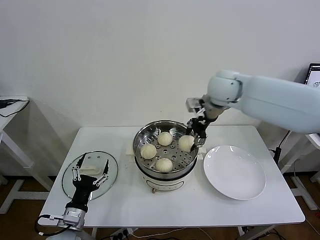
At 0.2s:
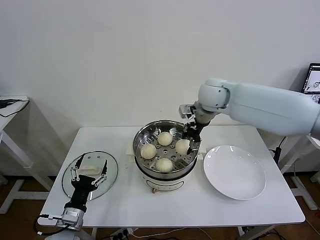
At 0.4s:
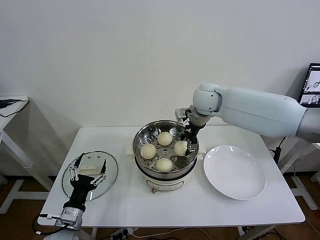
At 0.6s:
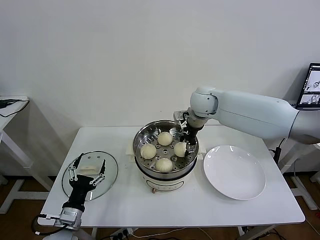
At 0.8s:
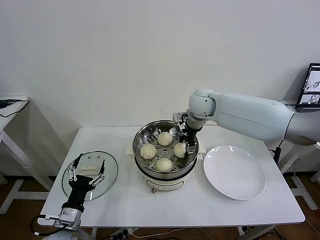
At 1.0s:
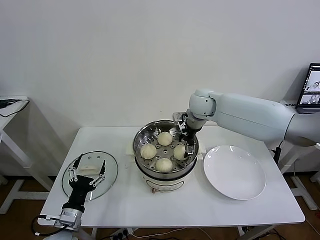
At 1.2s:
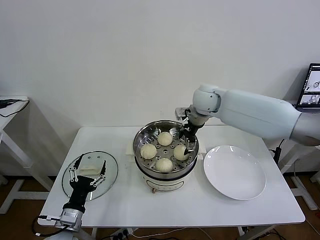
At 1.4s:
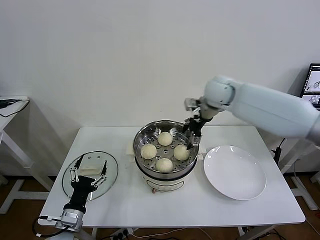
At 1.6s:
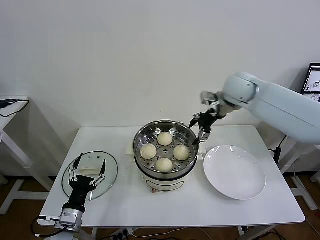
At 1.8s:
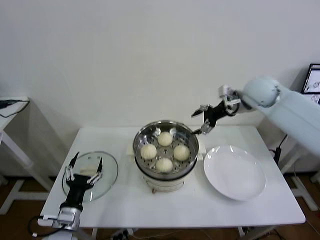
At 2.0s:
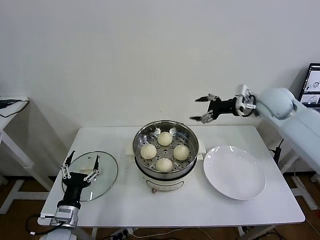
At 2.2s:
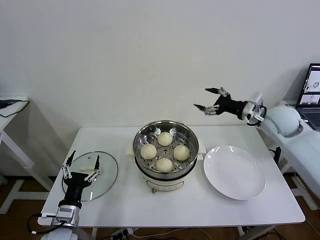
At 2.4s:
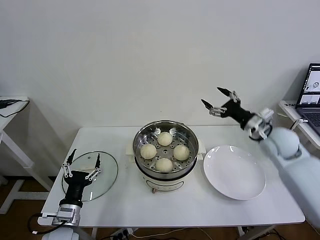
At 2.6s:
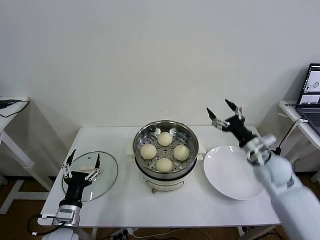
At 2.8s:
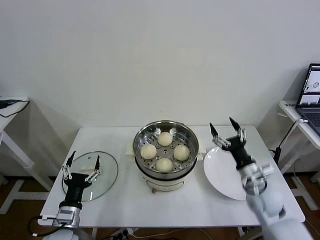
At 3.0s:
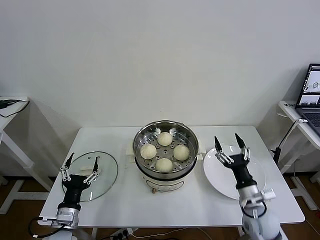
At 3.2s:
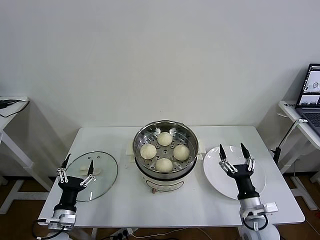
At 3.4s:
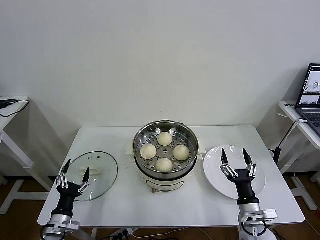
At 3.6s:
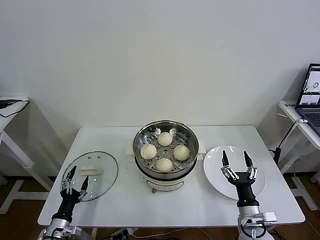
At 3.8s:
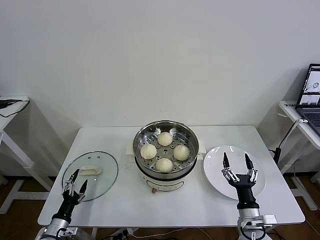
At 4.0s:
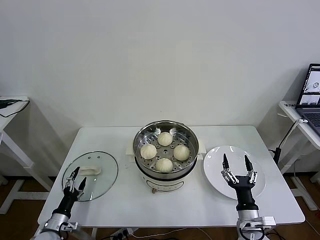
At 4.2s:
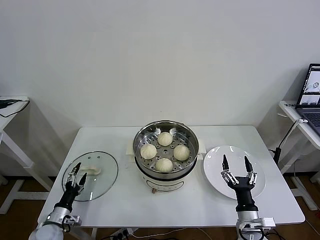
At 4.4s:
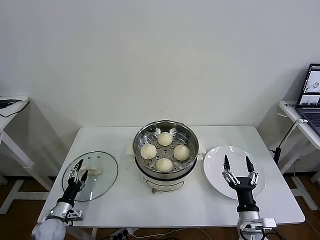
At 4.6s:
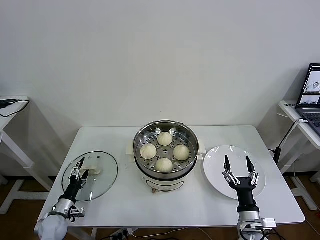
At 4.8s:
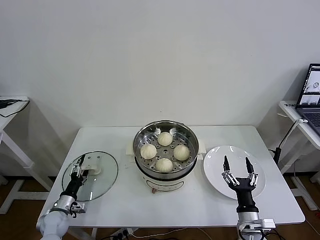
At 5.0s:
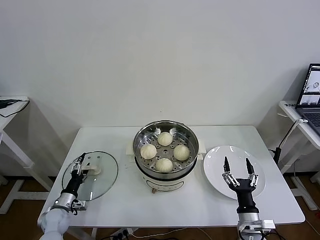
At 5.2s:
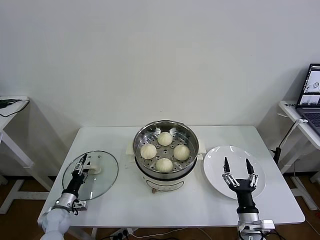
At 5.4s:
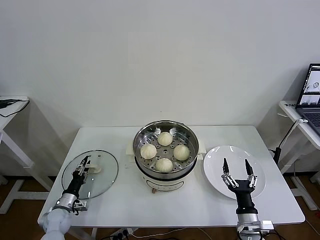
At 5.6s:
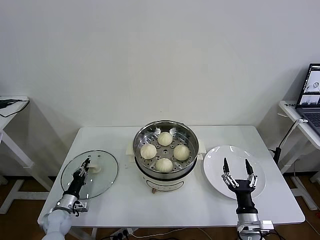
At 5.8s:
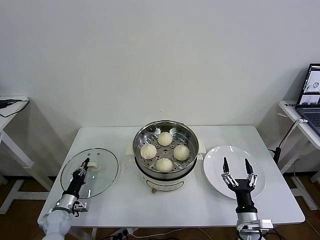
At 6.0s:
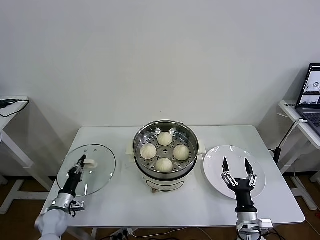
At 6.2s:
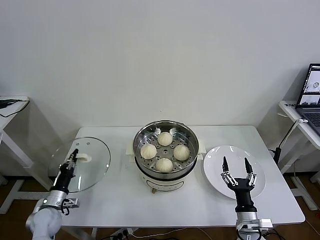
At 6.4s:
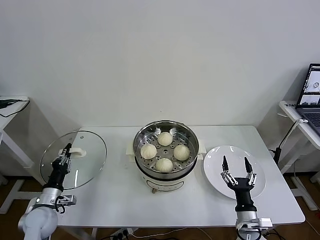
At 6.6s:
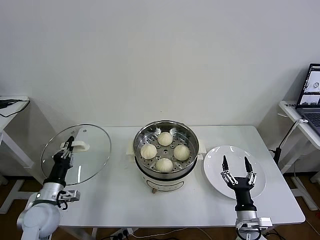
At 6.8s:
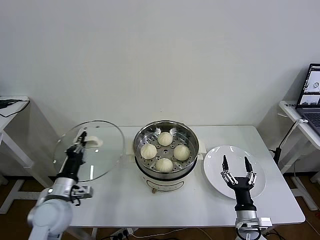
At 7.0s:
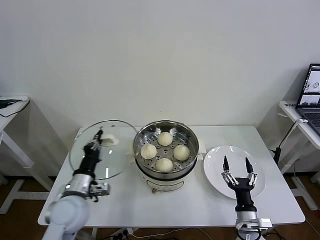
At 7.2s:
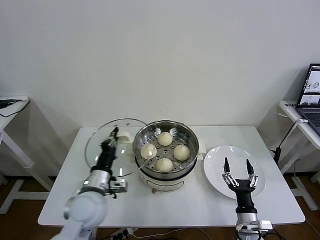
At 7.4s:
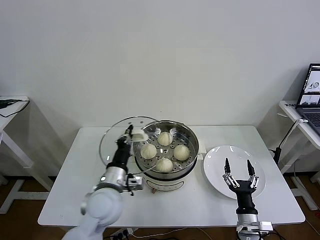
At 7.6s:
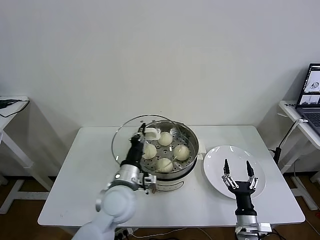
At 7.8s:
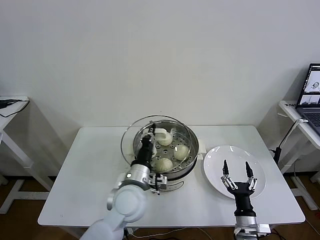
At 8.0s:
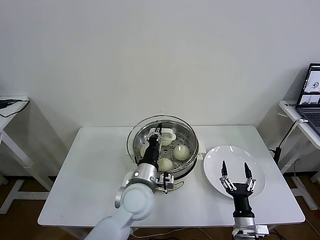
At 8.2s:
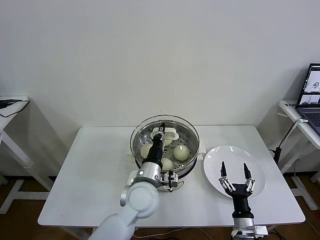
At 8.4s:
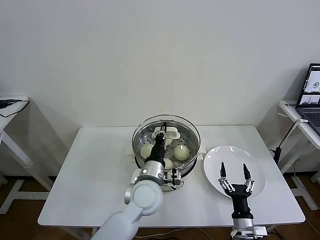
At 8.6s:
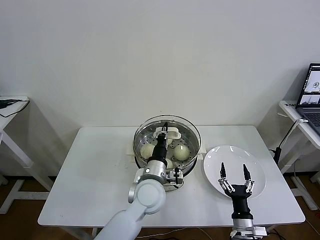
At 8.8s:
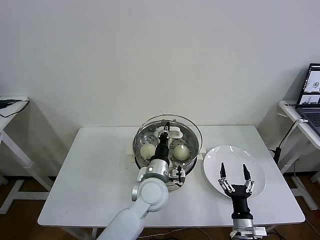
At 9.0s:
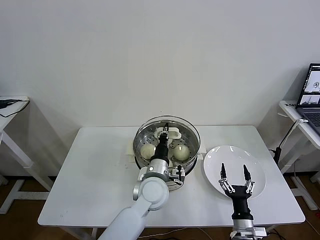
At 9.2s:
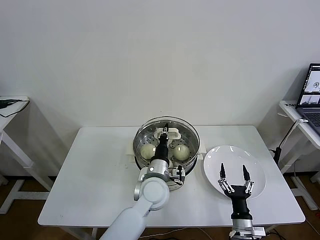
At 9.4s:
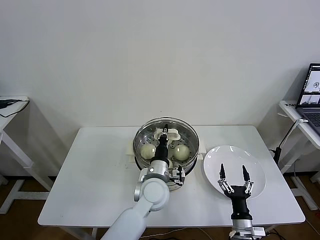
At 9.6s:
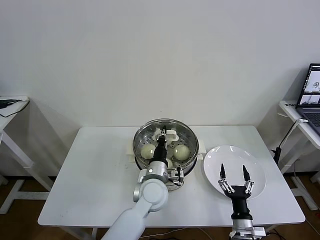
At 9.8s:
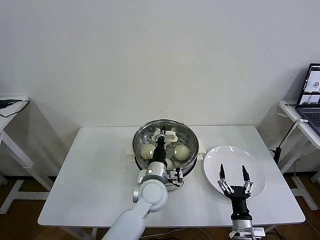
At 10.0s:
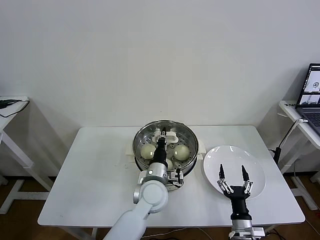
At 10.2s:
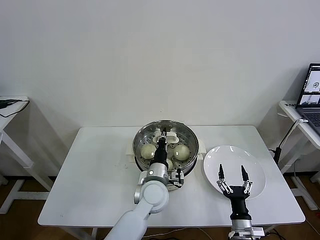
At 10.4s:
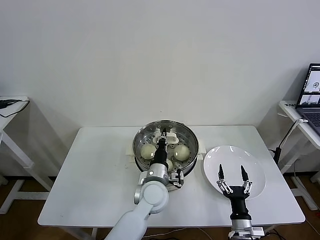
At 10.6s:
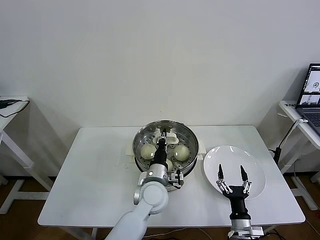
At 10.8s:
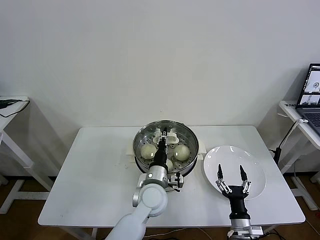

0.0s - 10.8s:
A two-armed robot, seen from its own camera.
Task of the whole recording: take steamed baozi put them in steamer then cover it.
Step, 1.2s - 5.8s: Grasp the pot lid with left gripper.
0.0s - 1.6s: The right gripper travels to the right by some 5 cm, and opens.
1.6s - 3.0s: The right gripper shifts roughly 40 cm downward and backward.
3.0s - 4.6s: The left gripper heads downward, to the left and forward, covering some 20 cm; the right gripper shifts approximately 10 cm backward and downward.
4.6s - 6.2s: The left gripper closes up.
6.2s - 7.8s: The left gripper is displaced to the right and upward by about 35 cm.
7.8s - 9.2s: The left gripper travels to the right by about 5 cm.
9.2s - 10.8s: There are only small adjustments of the grippers.

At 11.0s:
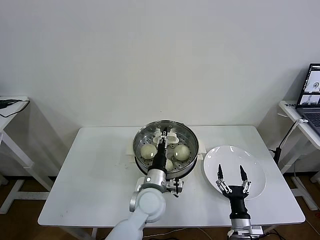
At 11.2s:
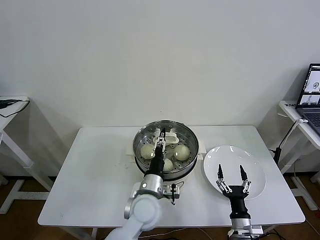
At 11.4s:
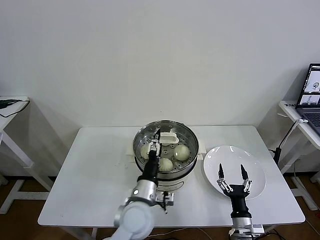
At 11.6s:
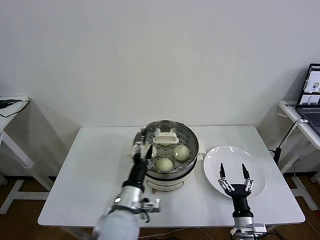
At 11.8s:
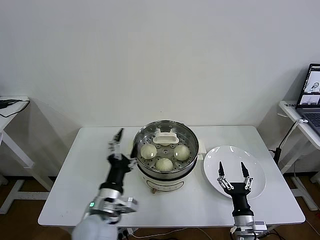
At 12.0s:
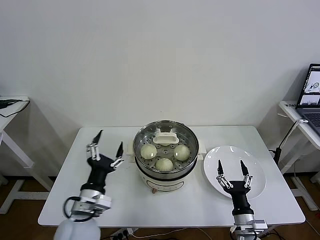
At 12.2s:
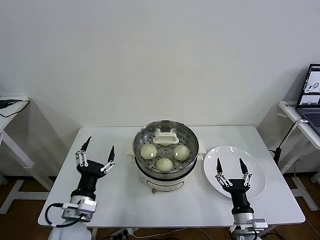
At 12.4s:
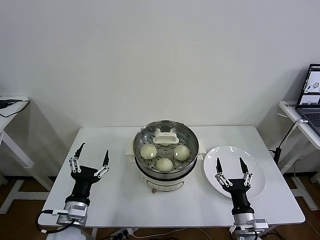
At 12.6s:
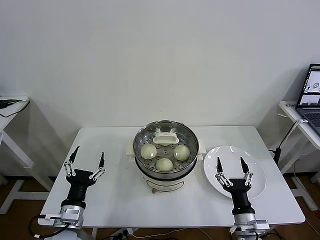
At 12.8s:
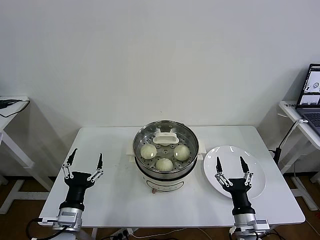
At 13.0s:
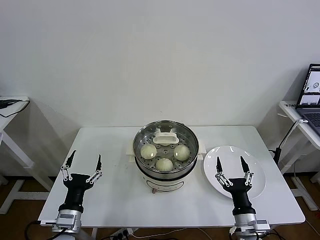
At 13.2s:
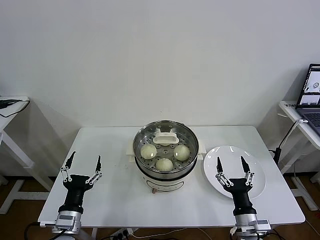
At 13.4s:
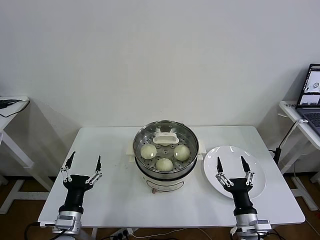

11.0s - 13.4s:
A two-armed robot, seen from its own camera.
Task of the whole recording: take steamed baozi put them in steamer then cover it.
11.0s - 12.2s: The left gripper shifts about 20 cm to the left and backward, and opens up, while the right gripper shifts about 5 cm upward.
12.2s - 13.4s: The left gripper shifts some 5 cm downward.

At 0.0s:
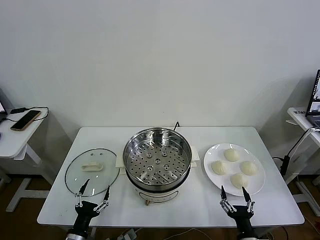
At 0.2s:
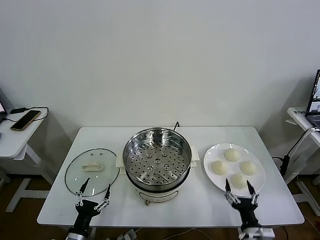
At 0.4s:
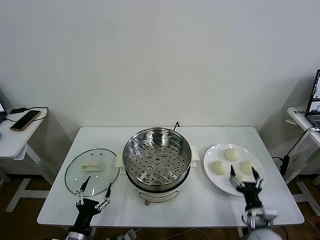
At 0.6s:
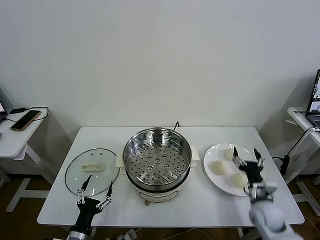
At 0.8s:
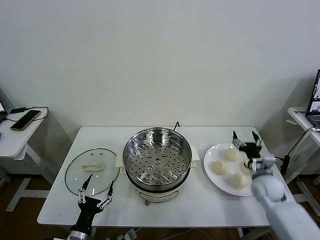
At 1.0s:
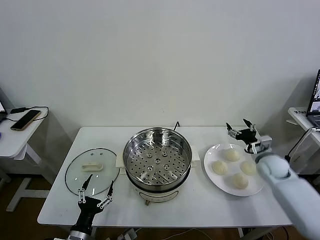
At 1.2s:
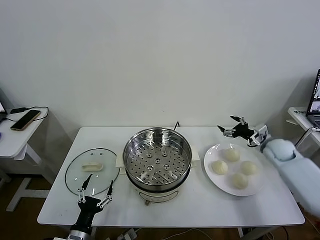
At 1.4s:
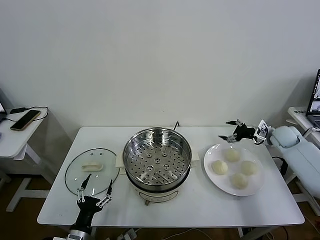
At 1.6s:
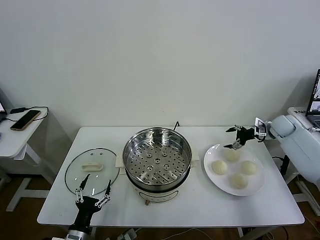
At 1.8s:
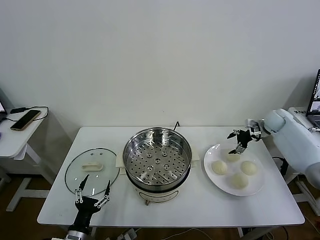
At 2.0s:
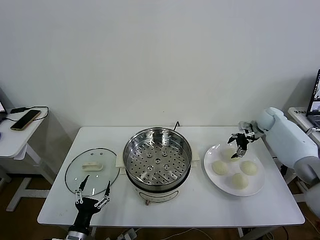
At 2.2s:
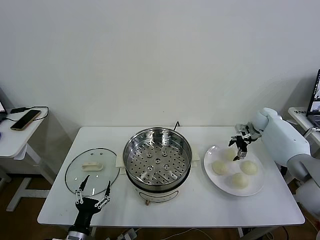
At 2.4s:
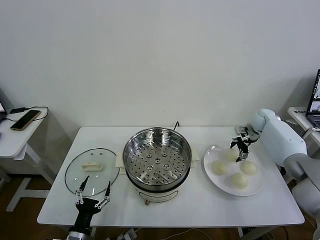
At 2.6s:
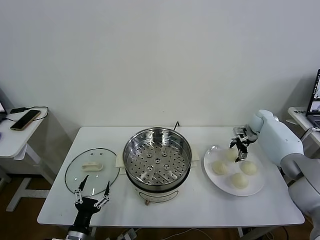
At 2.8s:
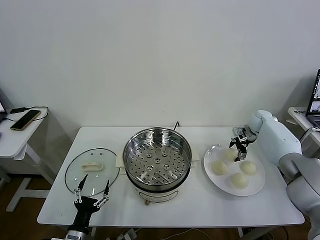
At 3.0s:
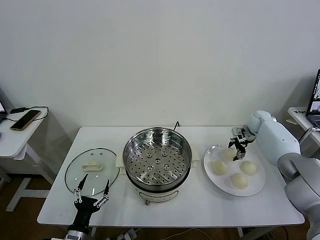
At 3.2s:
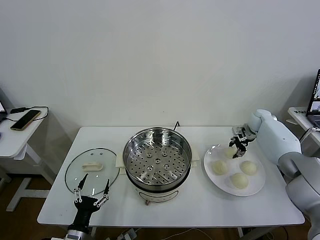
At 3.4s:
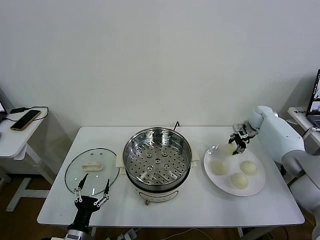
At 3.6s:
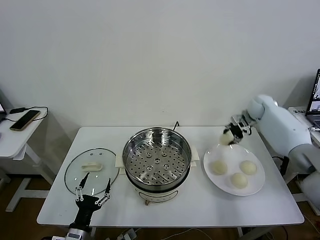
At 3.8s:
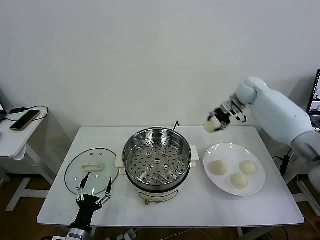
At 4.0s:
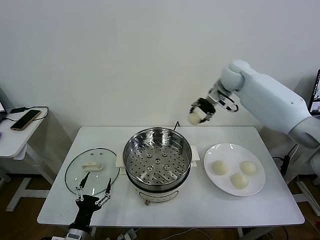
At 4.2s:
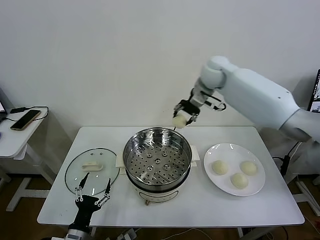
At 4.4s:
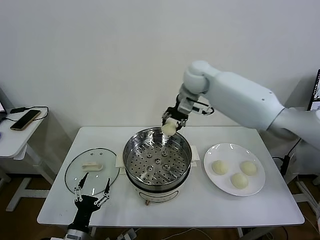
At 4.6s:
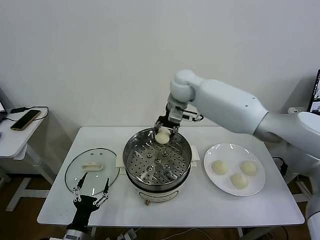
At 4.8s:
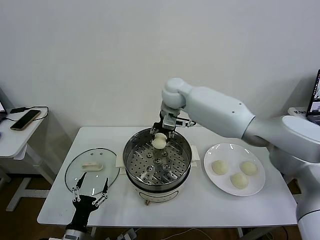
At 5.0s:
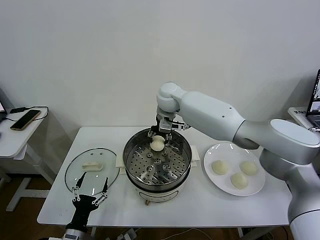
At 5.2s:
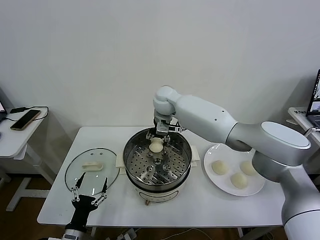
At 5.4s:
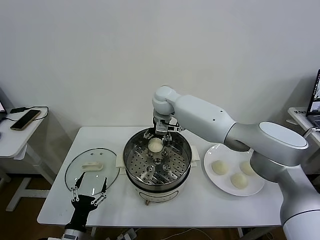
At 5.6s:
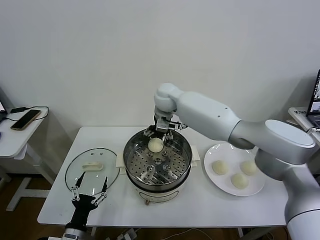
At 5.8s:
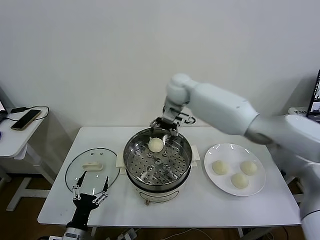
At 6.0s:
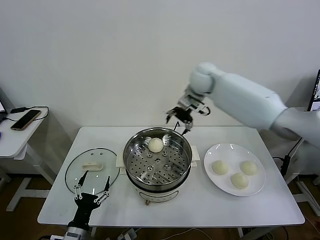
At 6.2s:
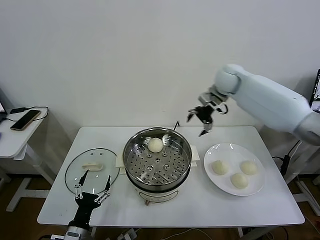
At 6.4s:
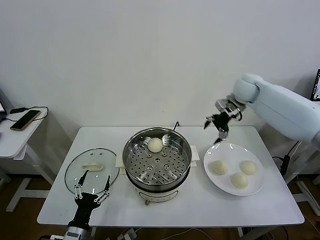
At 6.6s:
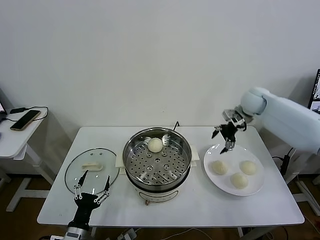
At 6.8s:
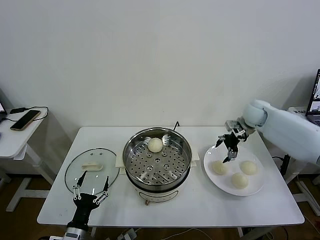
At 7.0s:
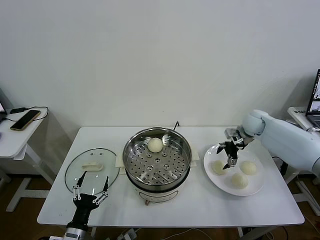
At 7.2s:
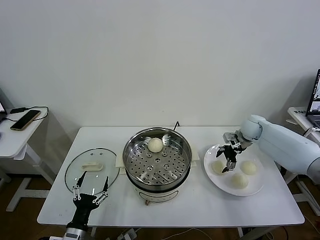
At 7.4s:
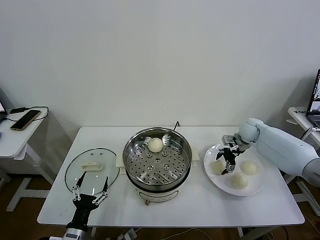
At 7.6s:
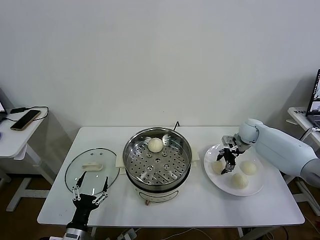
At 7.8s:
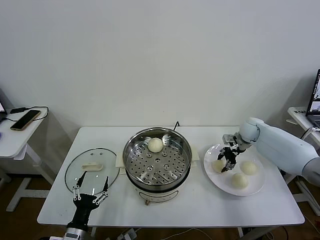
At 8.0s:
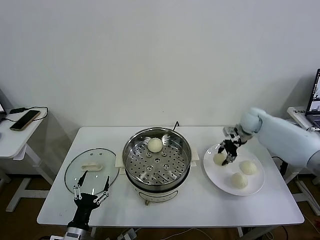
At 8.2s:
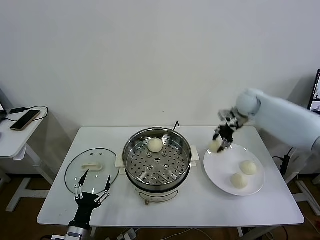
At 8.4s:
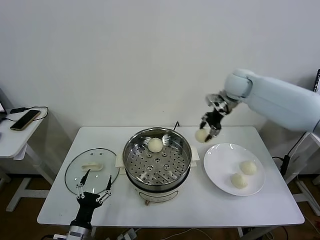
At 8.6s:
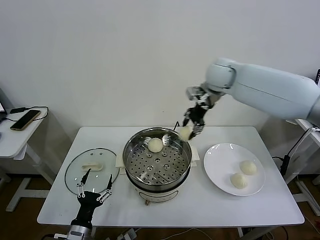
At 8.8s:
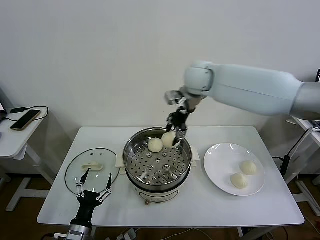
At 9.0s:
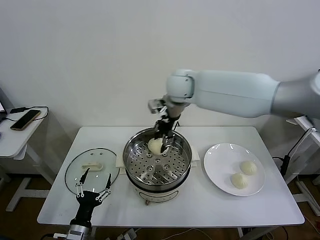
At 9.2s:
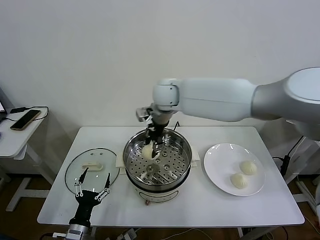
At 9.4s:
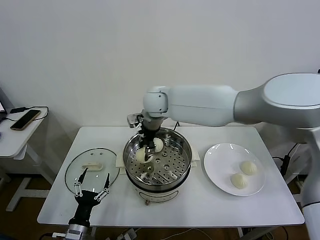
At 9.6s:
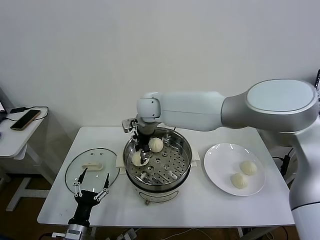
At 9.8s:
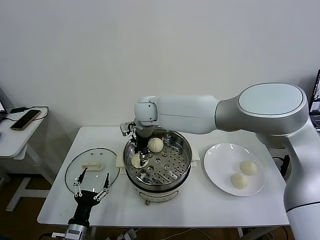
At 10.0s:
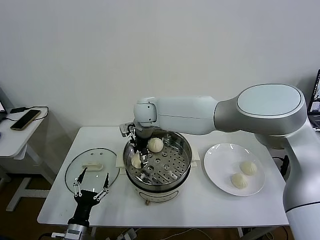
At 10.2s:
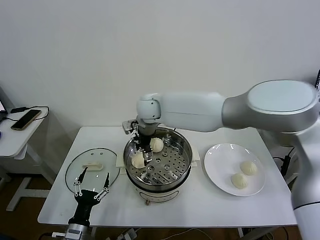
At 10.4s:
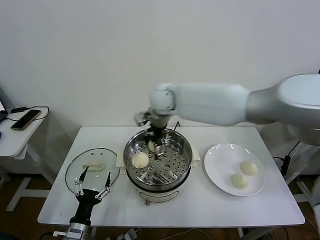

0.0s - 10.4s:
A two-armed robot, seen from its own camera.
Task of the whole recording: take steamed baozi put them in steamer then cover it.
Step, 0.0s - 3.2s: Grasp the baozi in the plate with right gripper.
Step, 3.4s - 5.4s: Place the baozi on the steamer with right gripper.
Step, 5.6s - 7.8s: Grasp the baozi in the plate with right gripper.
Step, 8.0s - 10.0s: Place the baozi on the steamer with right gripper.
1.4s - 3.0s: The right gripper is displaced forward and to the left by roughly 10 cm, and closes up.
3.0s - 4.4s: The right gripper shifts about 40 cm to the left and upward.
4.4s - 6.0s: The right gripper heads to the right, covering some 10 cm, and opens its fingers.
6.0s - 7.4s: The right gripper shifts some 30 cm downward and to the right.
7.4s - 9.0s: The right gripper moves to the left and upward, approximately 40 cm, and closes.
9.0s - 10.4s: The right gripper moves some 10 cm to the left and comes back, and opens up.
